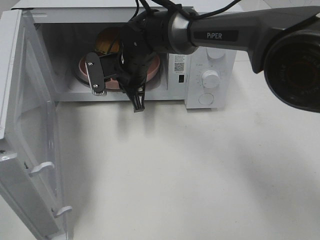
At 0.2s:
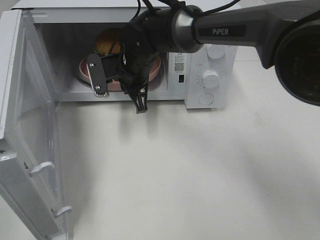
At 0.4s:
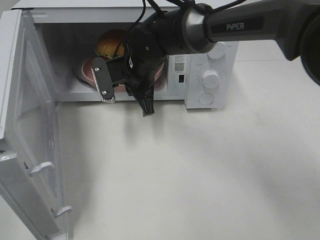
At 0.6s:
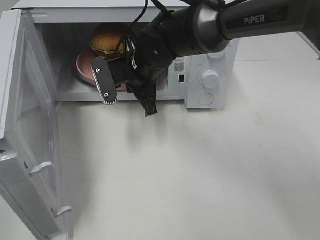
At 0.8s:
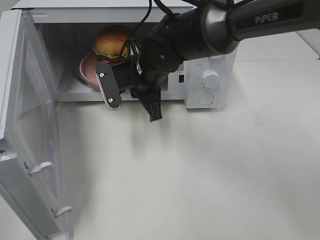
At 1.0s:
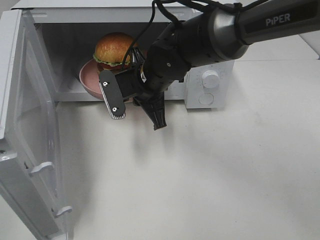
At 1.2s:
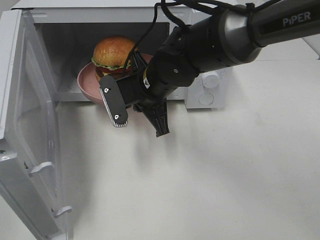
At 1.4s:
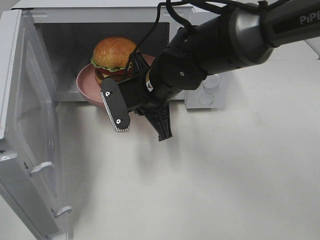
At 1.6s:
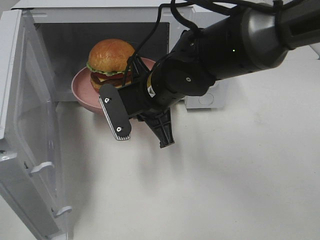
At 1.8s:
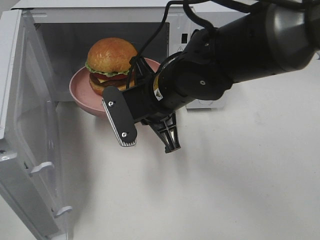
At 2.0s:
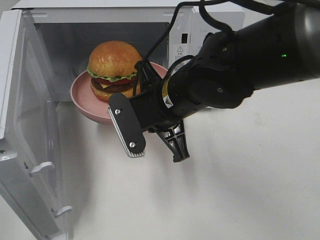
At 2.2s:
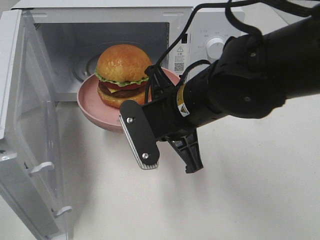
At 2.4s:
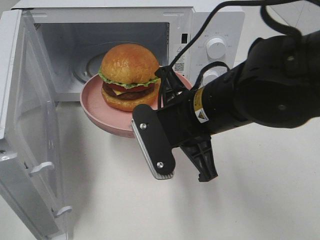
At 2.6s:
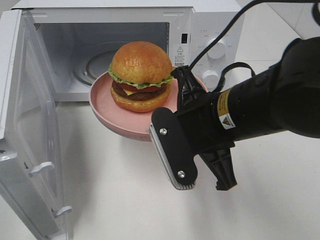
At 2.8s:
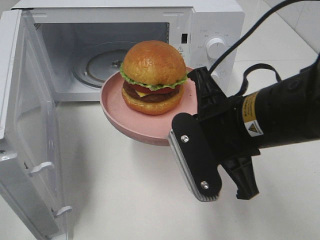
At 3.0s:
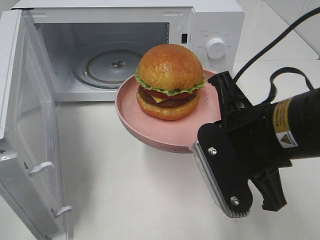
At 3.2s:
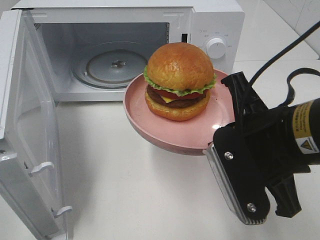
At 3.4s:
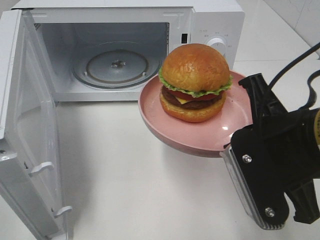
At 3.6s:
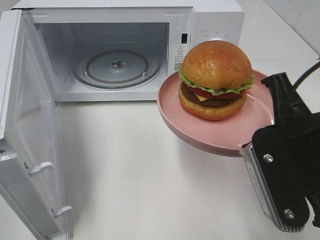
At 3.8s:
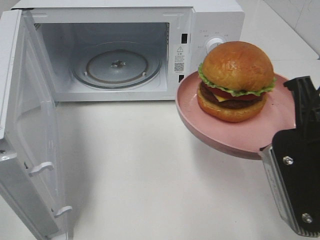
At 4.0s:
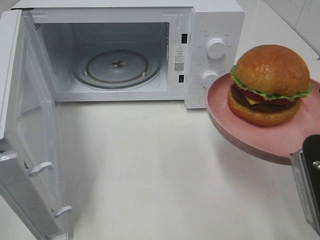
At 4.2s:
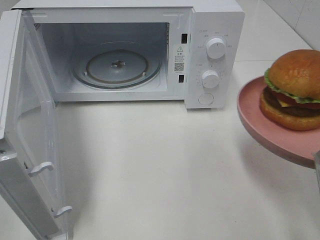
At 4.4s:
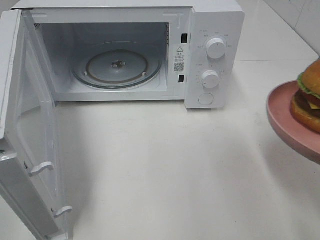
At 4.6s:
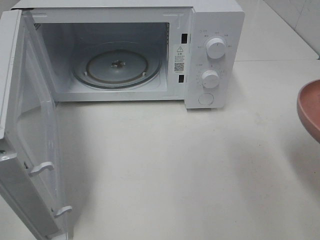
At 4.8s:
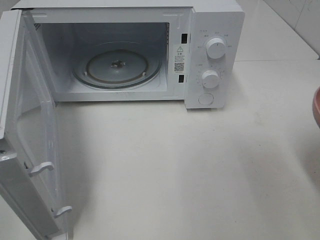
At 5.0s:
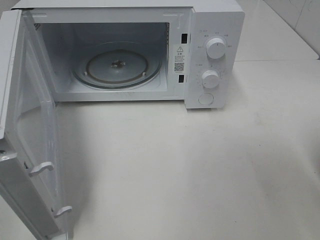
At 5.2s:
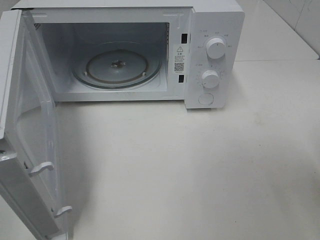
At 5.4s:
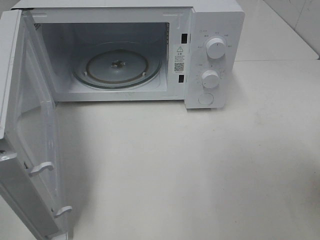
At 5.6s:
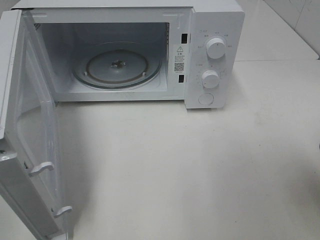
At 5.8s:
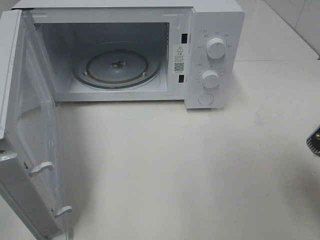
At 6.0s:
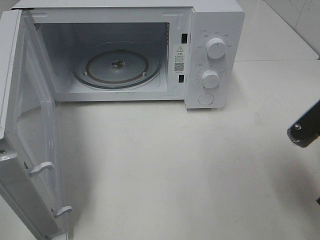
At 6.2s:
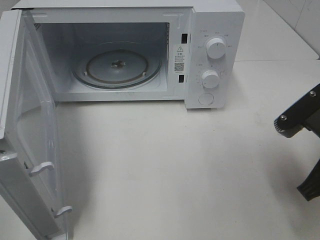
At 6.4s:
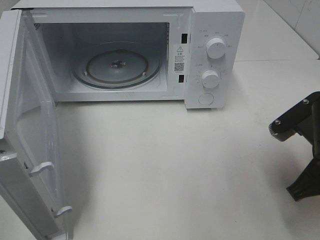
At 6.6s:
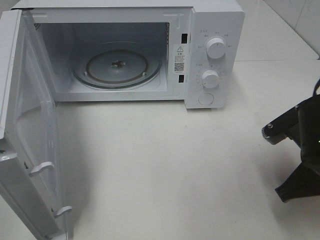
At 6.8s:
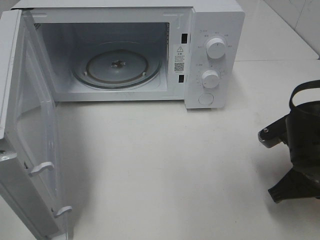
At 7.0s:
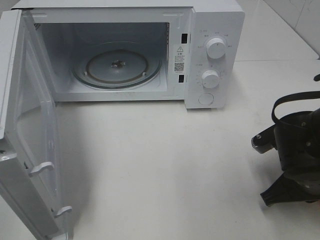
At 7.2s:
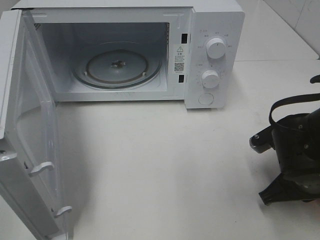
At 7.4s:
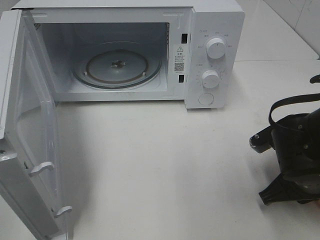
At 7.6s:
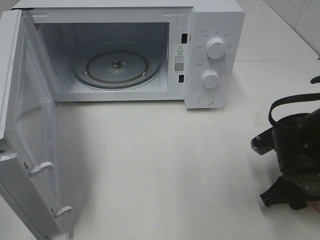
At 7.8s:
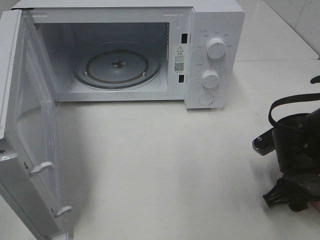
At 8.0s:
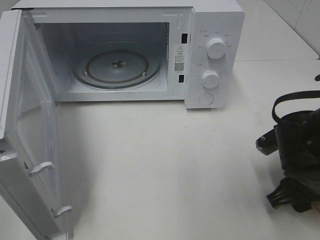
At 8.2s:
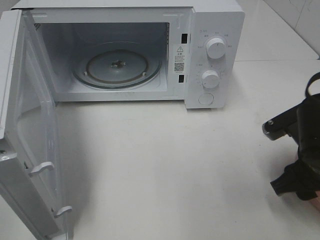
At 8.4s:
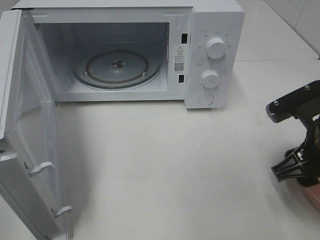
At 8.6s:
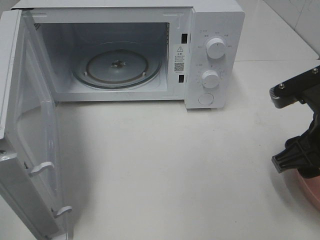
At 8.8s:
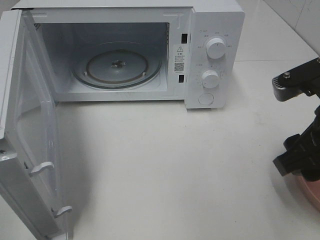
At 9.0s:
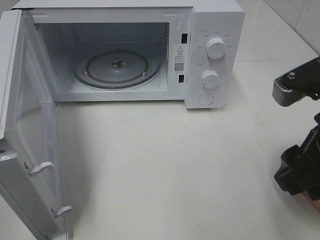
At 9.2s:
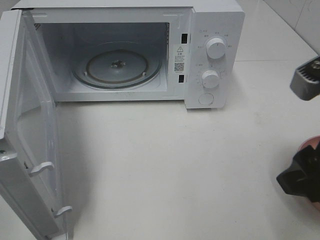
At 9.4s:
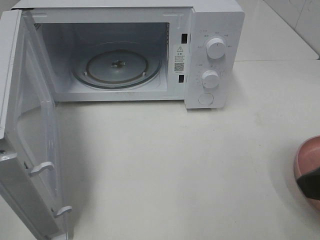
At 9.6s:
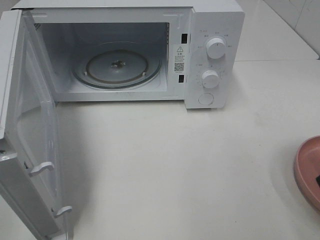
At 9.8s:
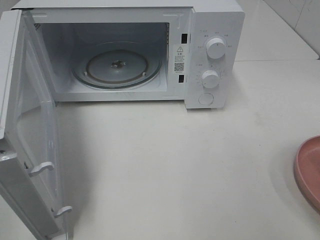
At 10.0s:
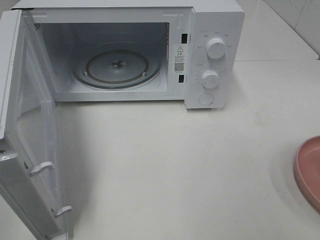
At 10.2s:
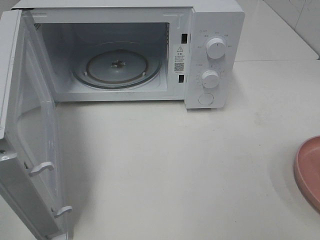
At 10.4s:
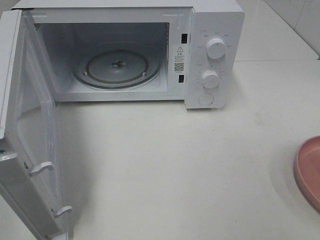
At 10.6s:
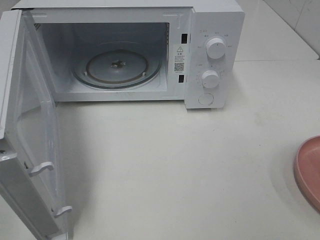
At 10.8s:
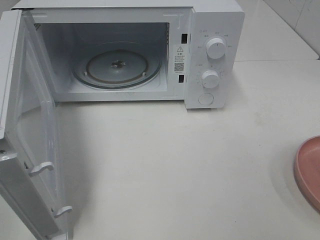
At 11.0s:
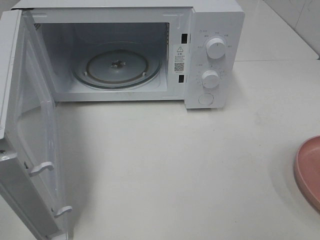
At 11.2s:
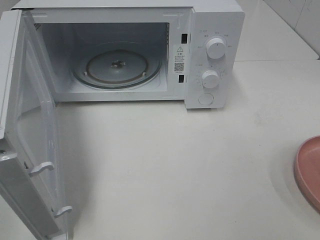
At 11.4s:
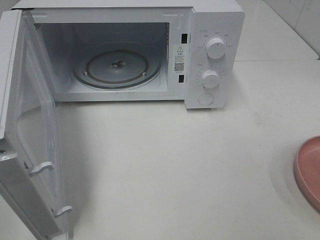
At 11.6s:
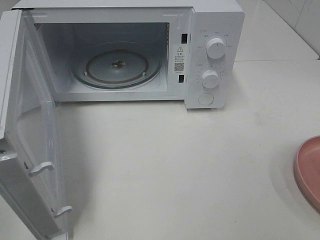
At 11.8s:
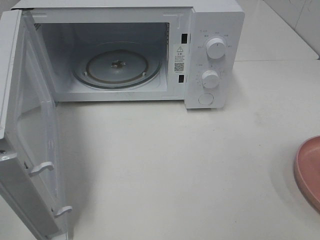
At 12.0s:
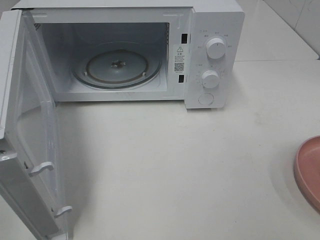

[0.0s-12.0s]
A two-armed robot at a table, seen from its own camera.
Task of the whole recording: Heat the burger.
Step, 0.0s to 7.6s: Right hand: place the plate on the table.
0.0s to 1.6s: The right gripper shifts approximately 10 cm backward.
1.6s to 3.0s: The right gripper goes roughly 20 cm backward, to the right and upward.
3.0s to 4.4s: The right gripper heads to the right and backward, covering some 15 cm.
4.4s to 6.0s: The right gripper moves about 5 cm.
6.0s to 7.6s: The right gripper is displaced downward and forward by about 10 cm, and opens up.
7.6s to 9.0s: The right gripper is displaced upward by roughly 15 cm.
9.0s to 10.4s: The right gripper goes approximately 20 cm backward, to the right and upward.

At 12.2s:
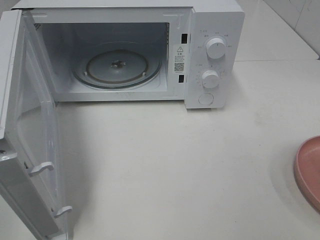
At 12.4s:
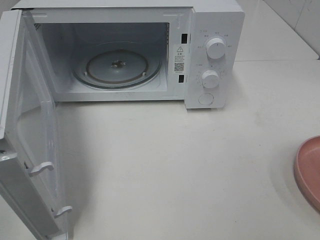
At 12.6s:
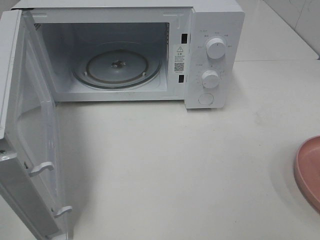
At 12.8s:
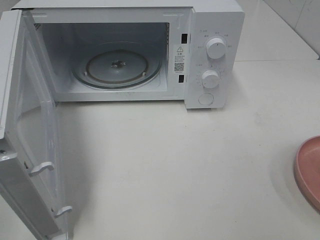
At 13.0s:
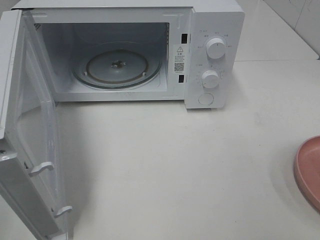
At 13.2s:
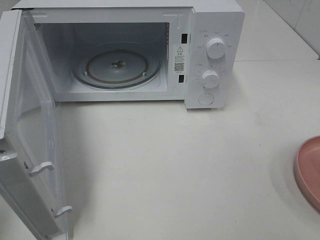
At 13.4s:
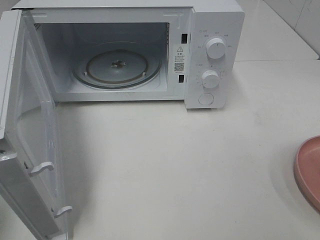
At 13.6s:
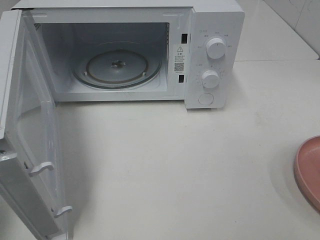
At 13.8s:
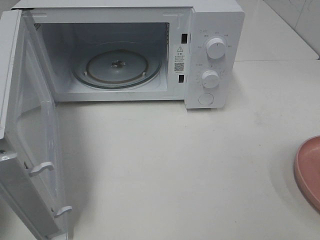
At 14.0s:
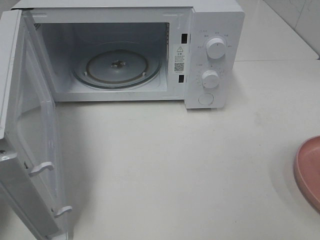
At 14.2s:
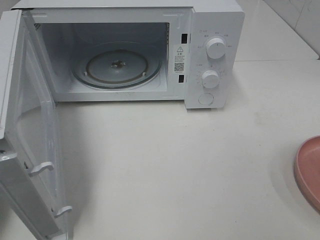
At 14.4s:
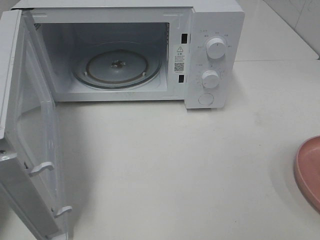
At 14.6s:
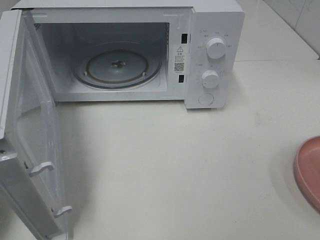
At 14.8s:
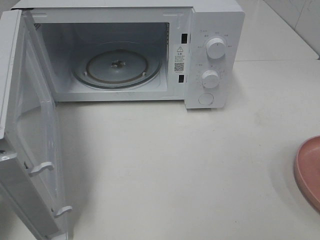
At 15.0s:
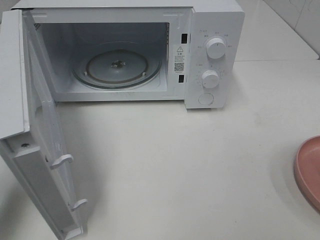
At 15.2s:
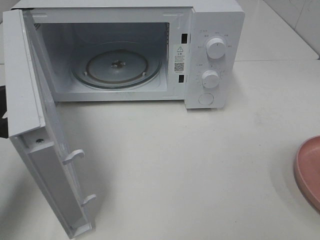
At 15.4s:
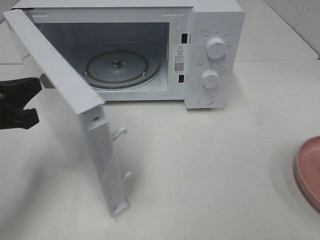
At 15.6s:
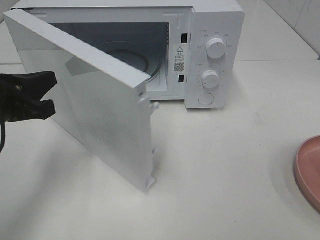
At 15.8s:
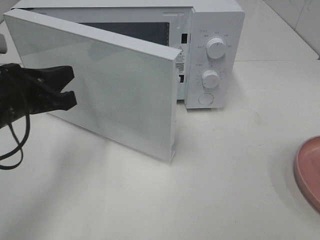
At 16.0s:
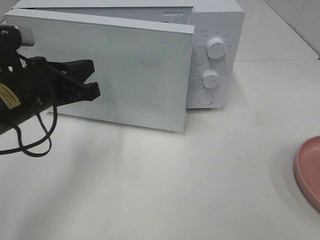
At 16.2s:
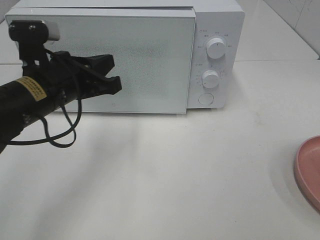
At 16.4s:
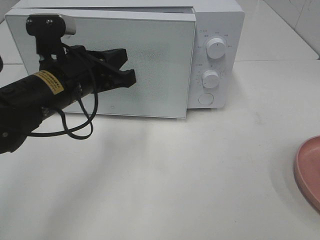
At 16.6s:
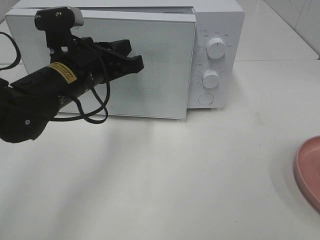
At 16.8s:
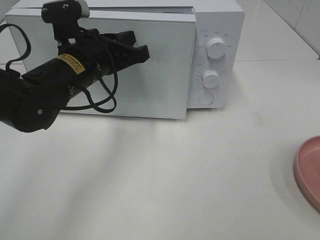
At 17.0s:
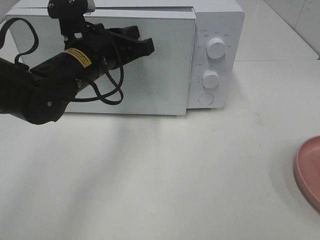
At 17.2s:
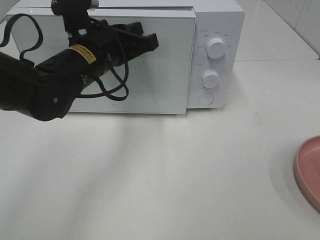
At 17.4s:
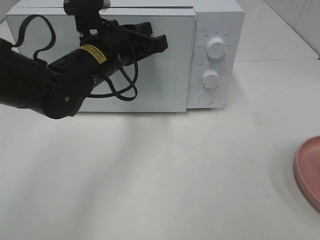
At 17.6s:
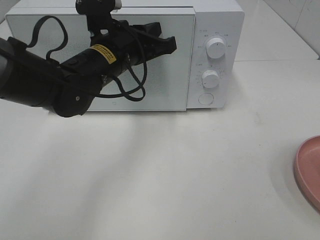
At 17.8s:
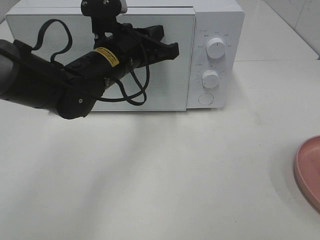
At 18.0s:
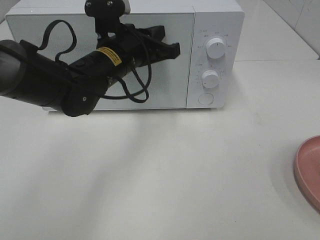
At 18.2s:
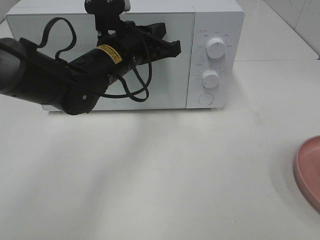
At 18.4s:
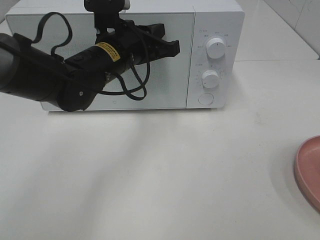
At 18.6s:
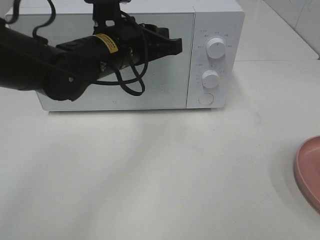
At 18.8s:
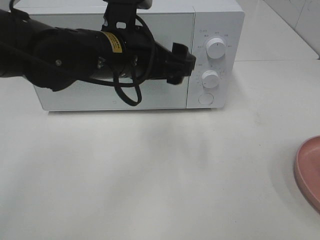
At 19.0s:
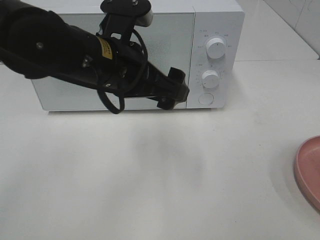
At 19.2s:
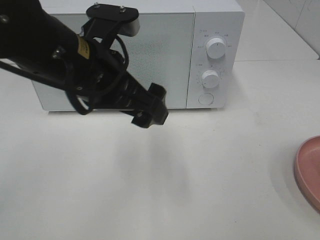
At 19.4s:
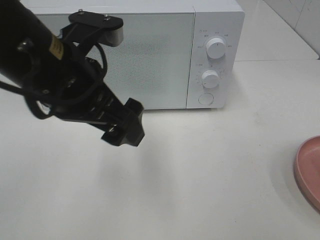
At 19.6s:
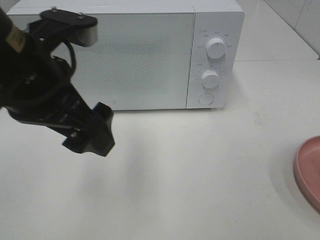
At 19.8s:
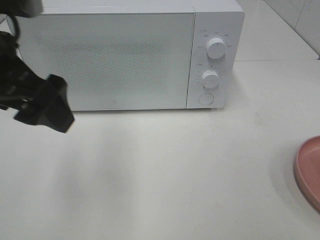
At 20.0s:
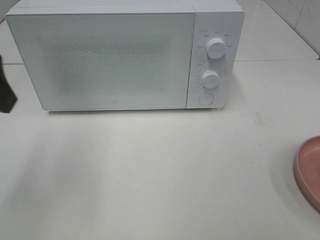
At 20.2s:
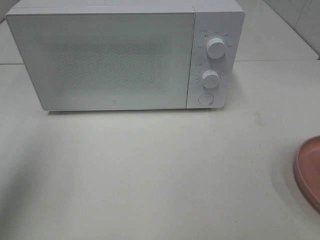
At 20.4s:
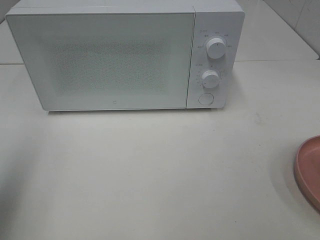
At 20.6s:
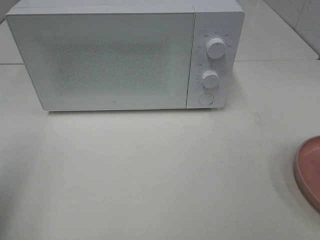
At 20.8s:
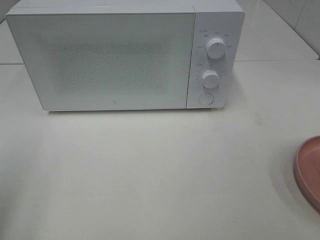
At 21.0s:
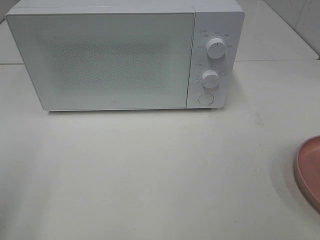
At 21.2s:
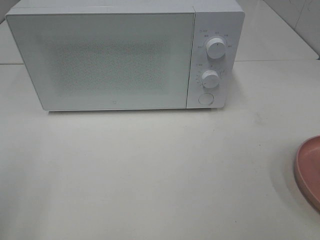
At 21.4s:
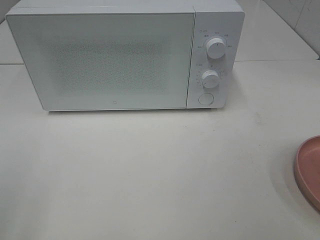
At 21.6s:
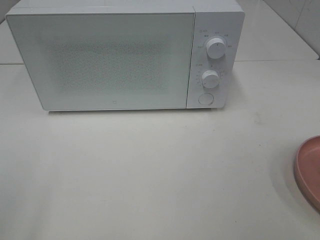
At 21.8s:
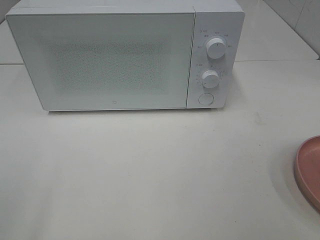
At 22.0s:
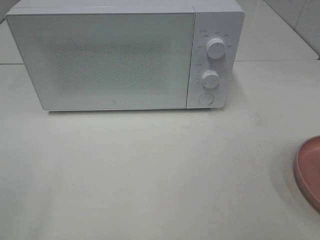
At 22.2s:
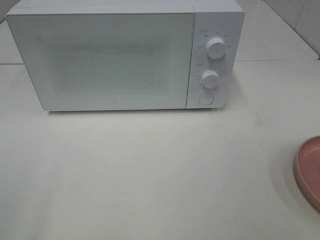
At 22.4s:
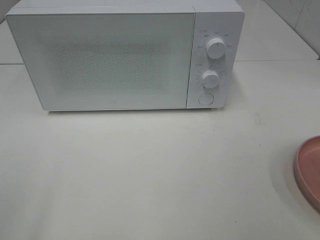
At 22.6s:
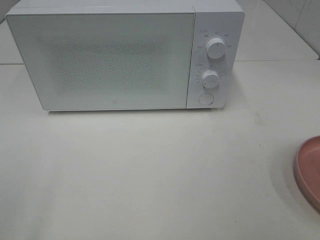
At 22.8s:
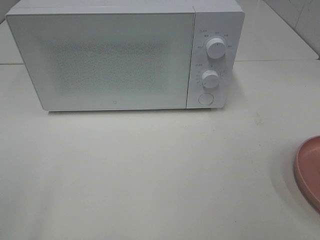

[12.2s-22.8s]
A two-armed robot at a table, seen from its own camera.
Task of the whole recording: Heat the burger.
Step, 12.2s to 18.6s: Left hand: close the microwave door.
13.8s to 15.2s: The left gripper is displaced downward, forward and to the right by approximately 10 cm.
15.2s to 16.8s: The left gripper is displaced to the right and forward by roughly 20 cm.
16.8s to 18.2s: The left gripper moves approximately 5 cm.
18.2s to 19.8s: The left gripper goes roughly 25 cm backward, to the left and upward, and opens.
19.8s to 21.2s: The left gripper travels backward and to the left by some 20 cm.
